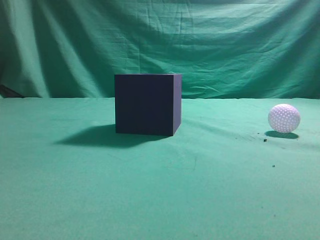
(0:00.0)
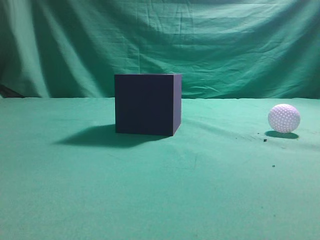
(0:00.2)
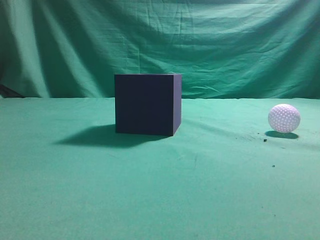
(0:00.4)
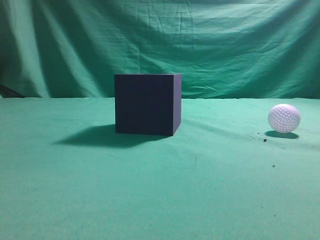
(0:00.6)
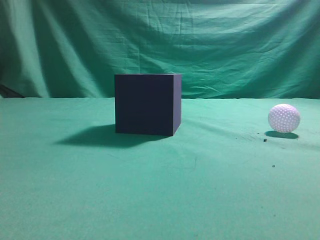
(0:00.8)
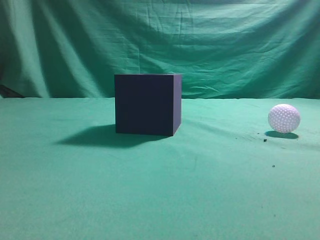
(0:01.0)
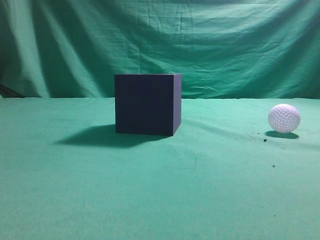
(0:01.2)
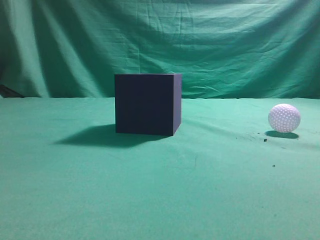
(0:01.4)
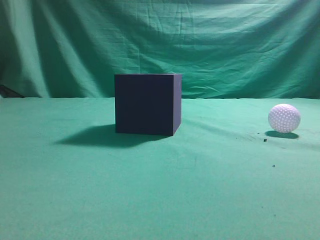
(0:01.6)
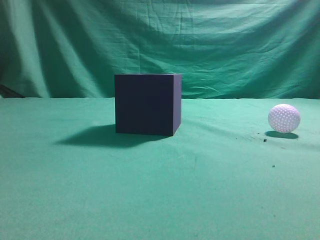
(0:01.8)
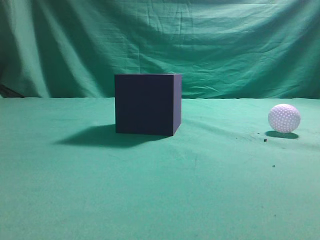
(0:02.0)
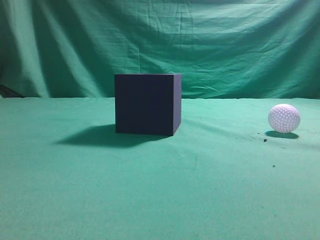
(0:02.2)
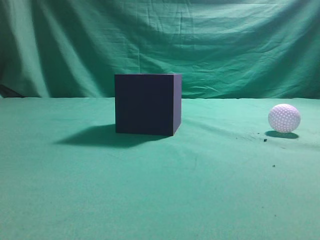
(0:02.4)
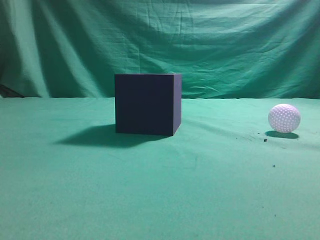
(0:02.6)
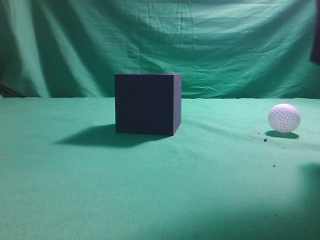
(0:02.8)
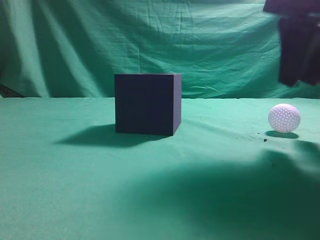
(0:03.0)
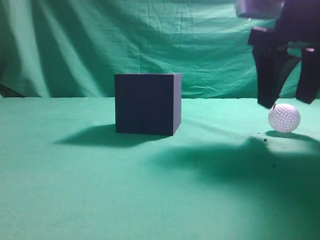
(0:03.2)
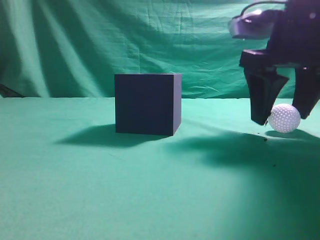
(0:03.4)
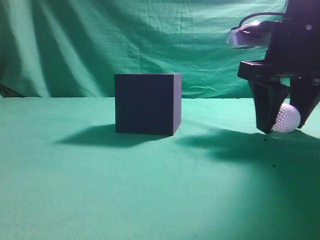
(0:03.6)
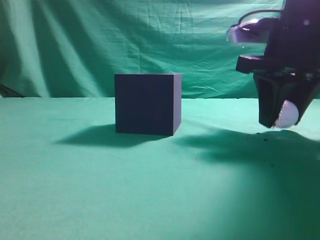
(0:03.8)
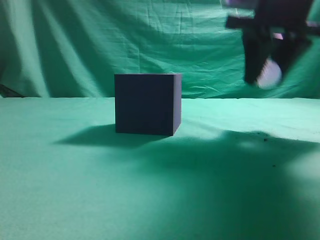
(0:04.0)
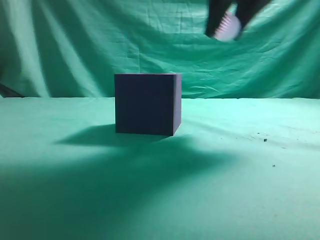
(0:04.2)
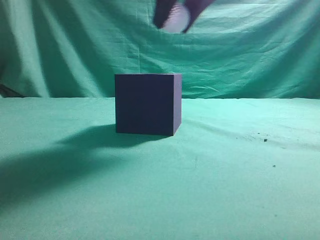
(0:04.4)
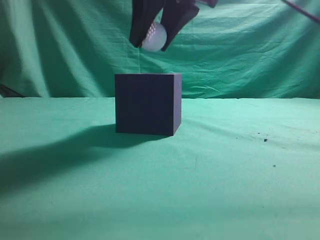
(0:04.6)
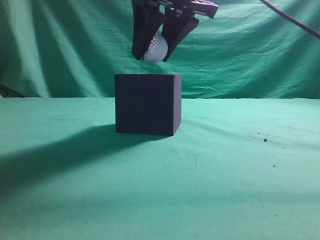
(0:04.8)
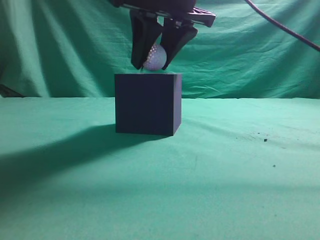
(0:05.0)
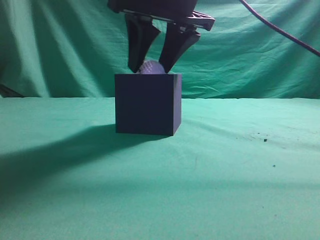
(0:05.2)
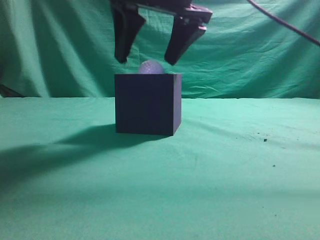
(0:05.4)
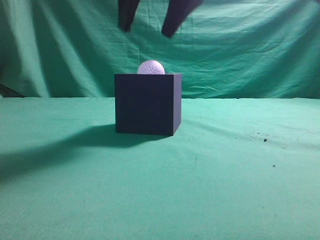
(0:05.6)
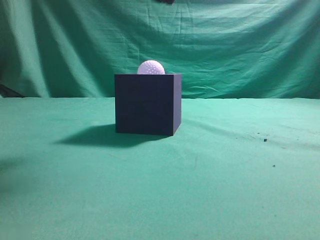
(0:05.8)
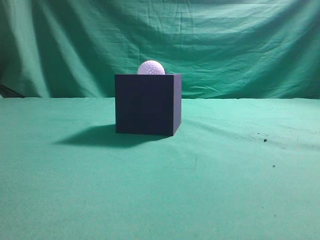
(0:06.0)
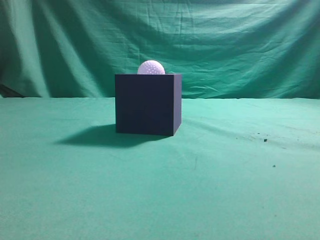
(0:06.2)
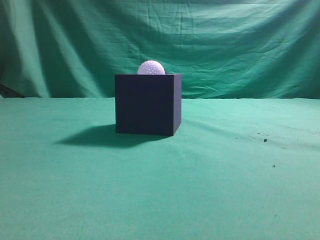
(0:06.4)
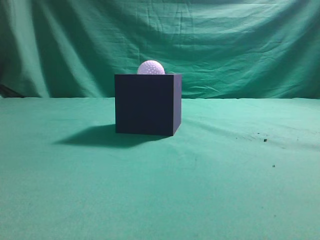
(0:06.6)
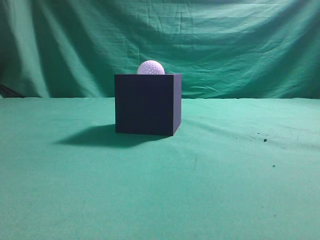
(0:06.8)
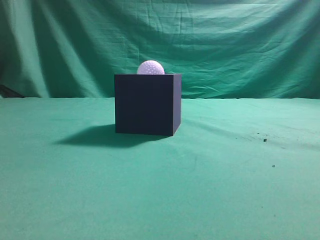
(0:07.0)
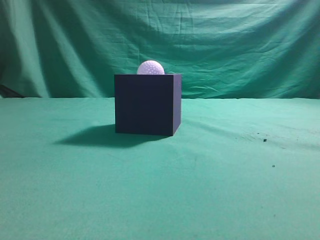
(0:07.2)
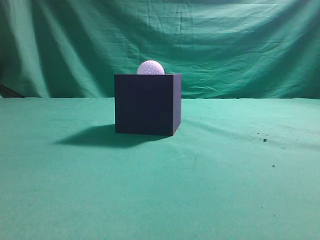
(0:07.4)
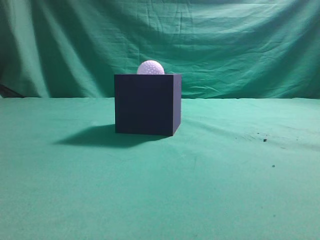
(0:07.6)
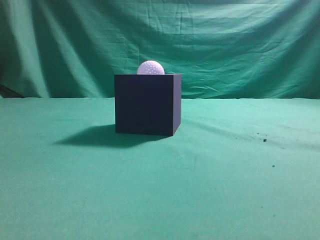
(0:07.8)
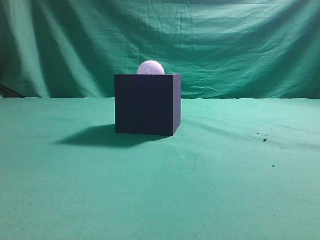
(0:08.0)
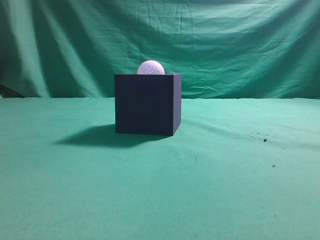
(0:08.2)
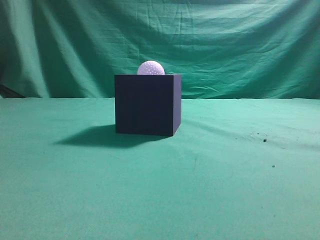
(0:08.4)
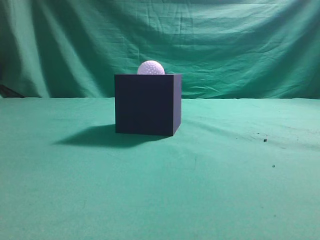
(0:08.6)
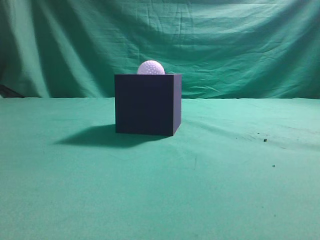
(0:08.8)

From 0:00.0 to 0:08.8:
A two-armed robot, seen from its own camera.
Task of the whole recording: Pick up the ball and place it in the circular groove above the cube.
Step, from 0:00.0 to 0:03.8: Grasp the sphere on the table.
Step, from 0:04.0 to 0:05.6: Place the sphere into the sphere-shaped recess.
From 0:01.4 to 0:03.0: The right gripper goes about 25 cm forward and to the left, and opens.
From 0:03.0 to 0:04.4: The right gripper shifts approximately 15 cm to the left and upward, and opens, then closes again.
From 0:04.4 to 0:05.8: The right gripper opens, then closes once more.
